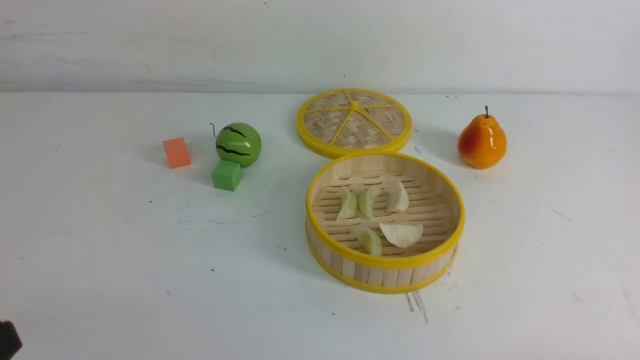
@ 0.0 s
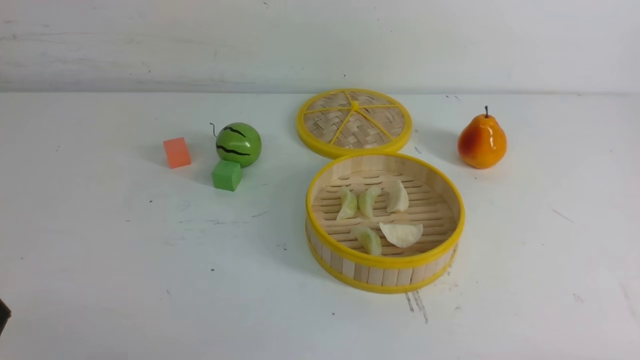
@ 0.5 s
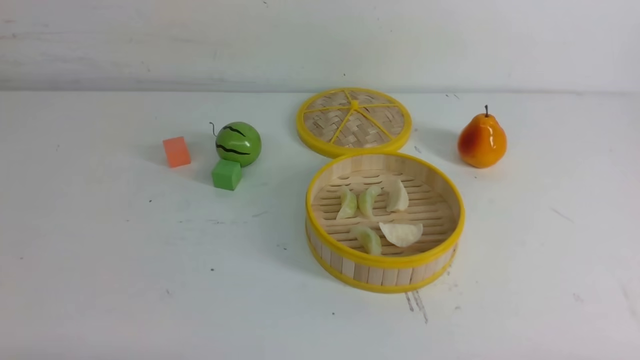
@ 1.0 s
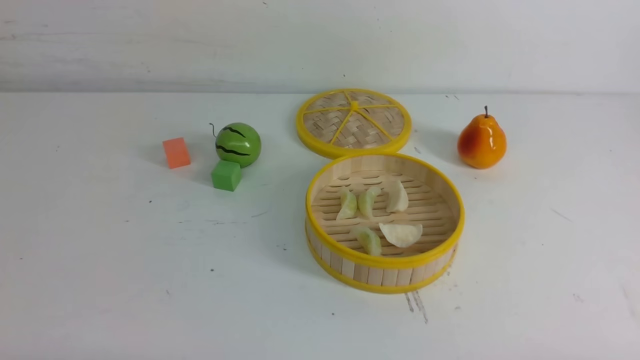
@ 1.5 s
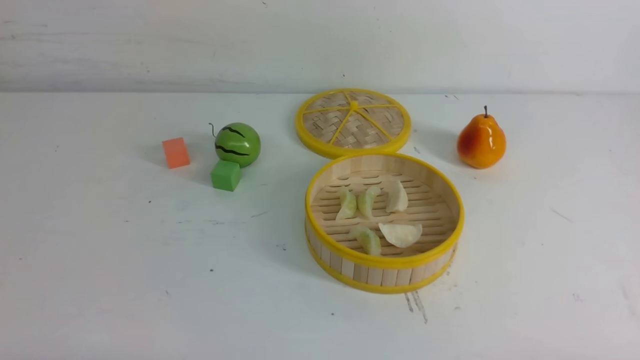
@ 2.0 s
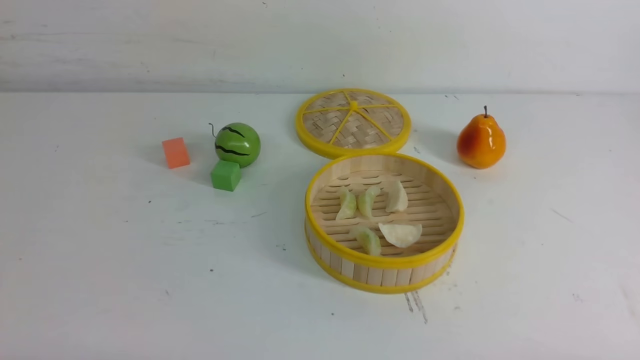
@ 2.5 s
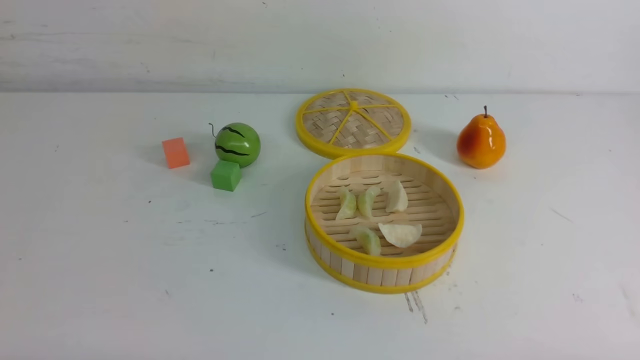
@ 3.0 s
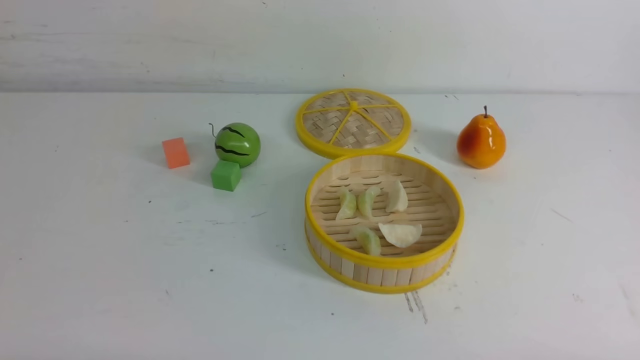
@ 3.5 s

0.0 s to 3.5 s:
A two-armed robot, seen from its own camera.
Task of the whole recording: put the dumplings into the steamer on the white table.
2.0 to 3.5 s: The two grippers keep their place.

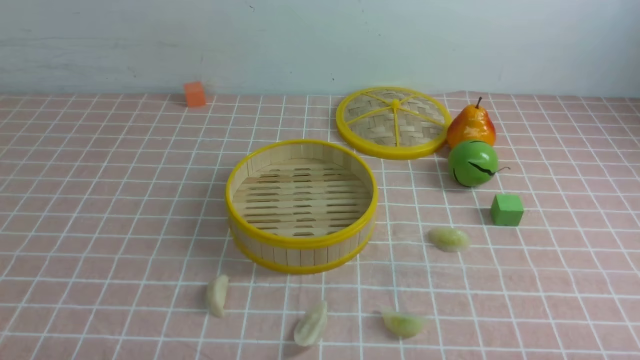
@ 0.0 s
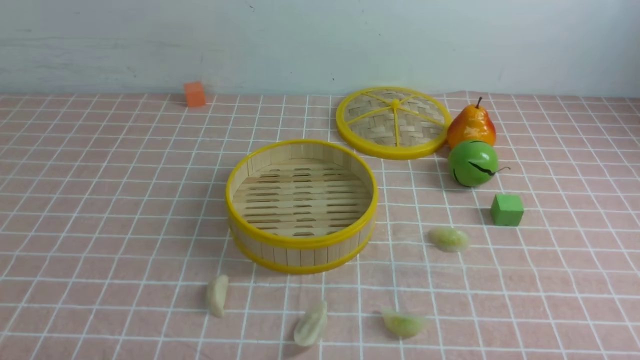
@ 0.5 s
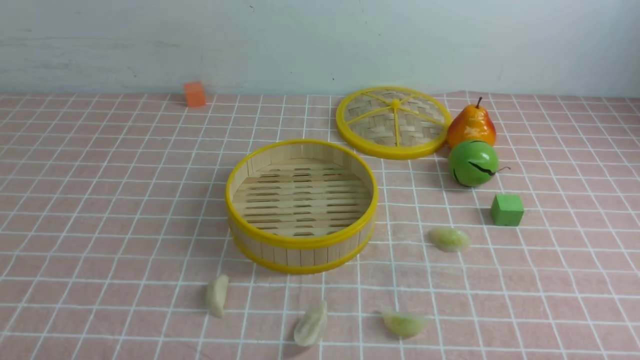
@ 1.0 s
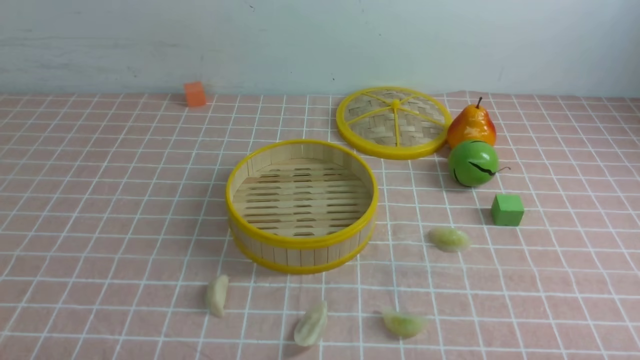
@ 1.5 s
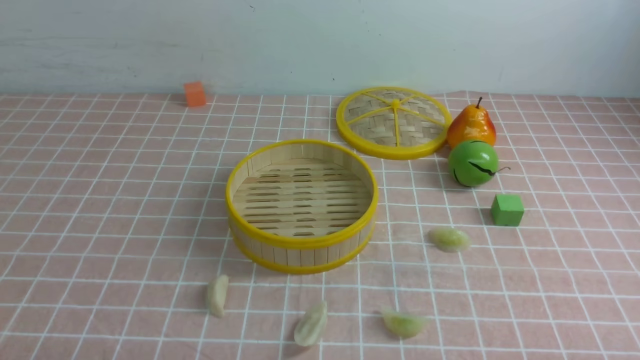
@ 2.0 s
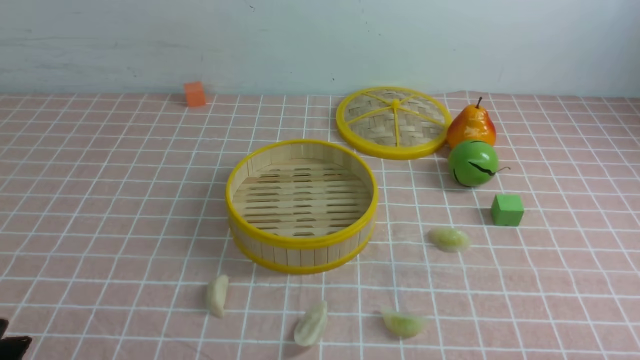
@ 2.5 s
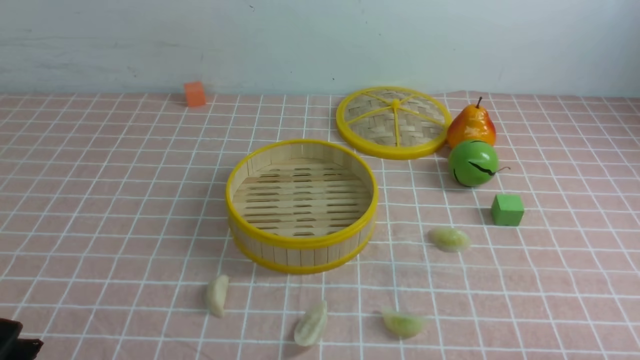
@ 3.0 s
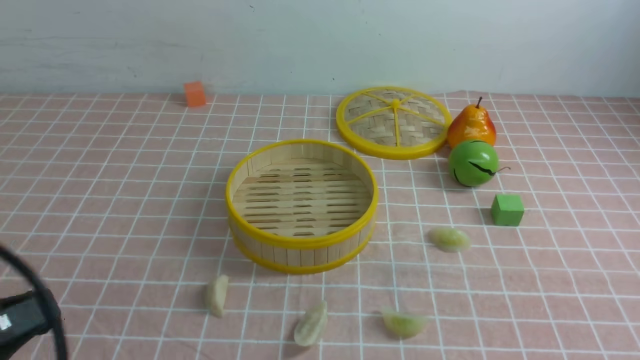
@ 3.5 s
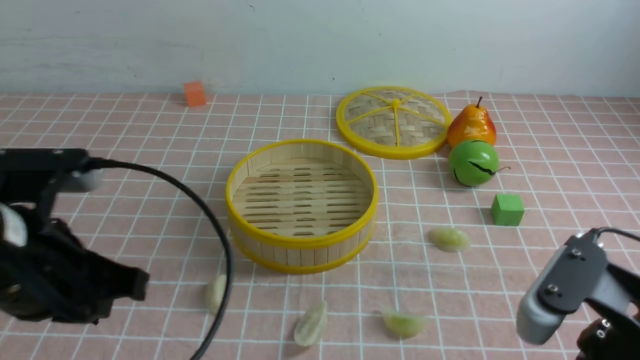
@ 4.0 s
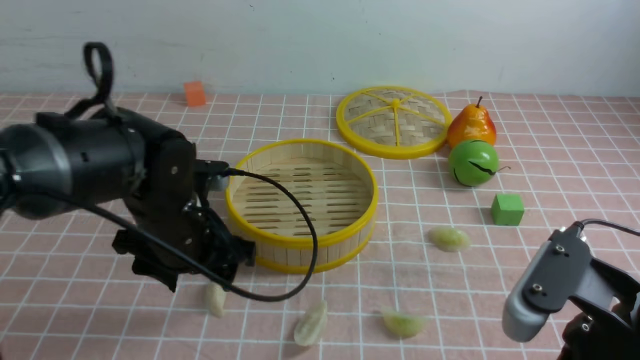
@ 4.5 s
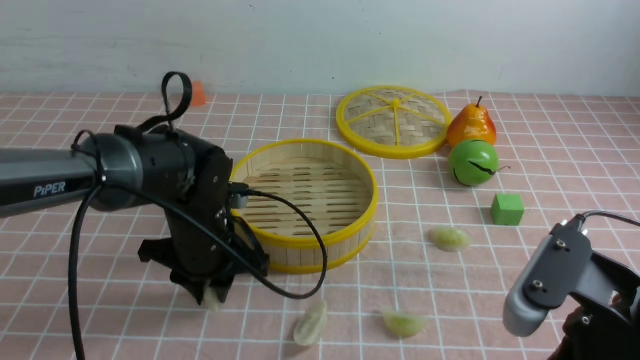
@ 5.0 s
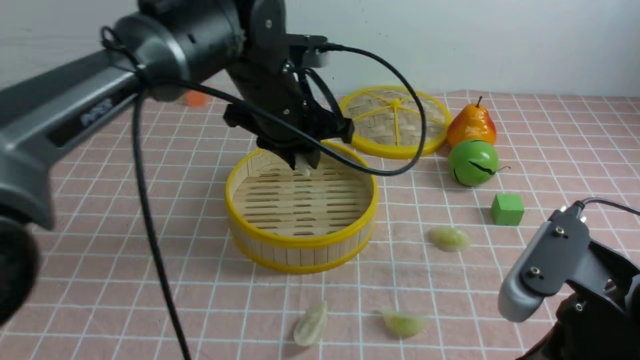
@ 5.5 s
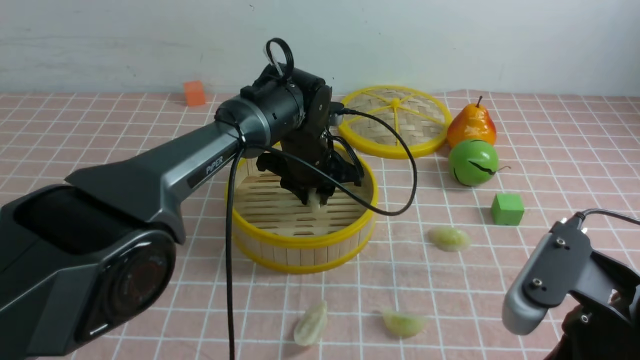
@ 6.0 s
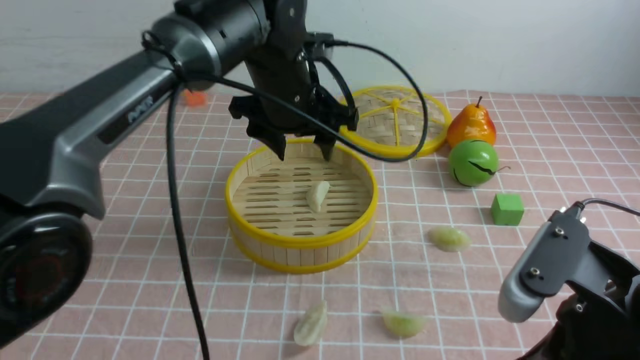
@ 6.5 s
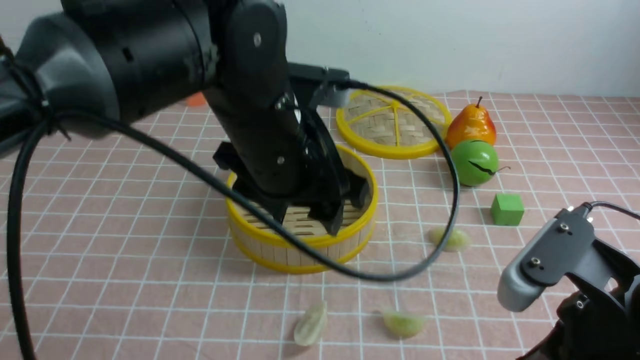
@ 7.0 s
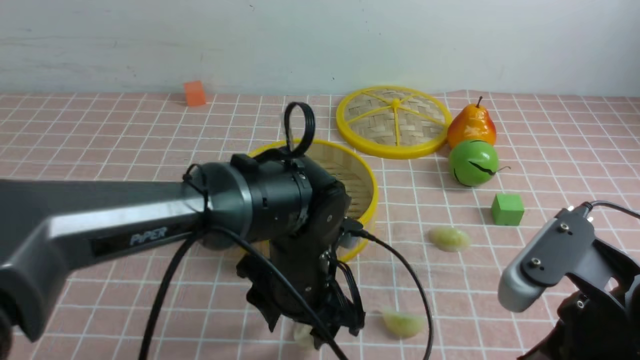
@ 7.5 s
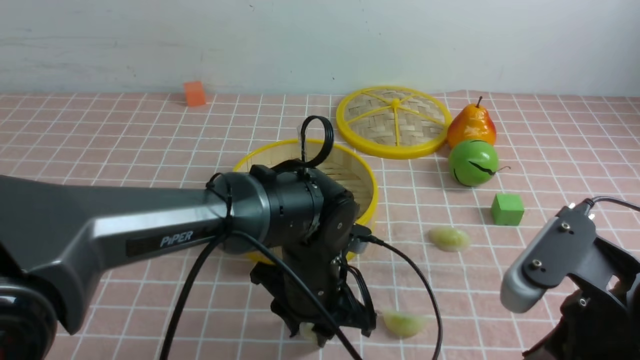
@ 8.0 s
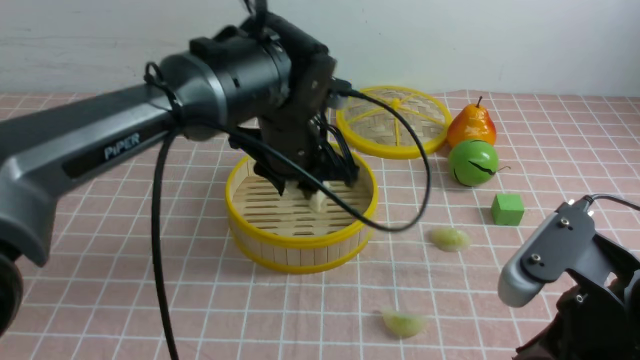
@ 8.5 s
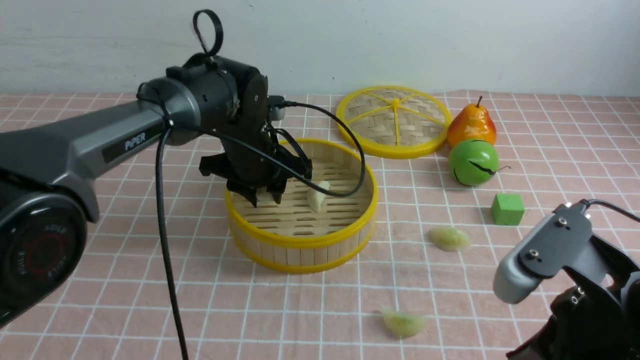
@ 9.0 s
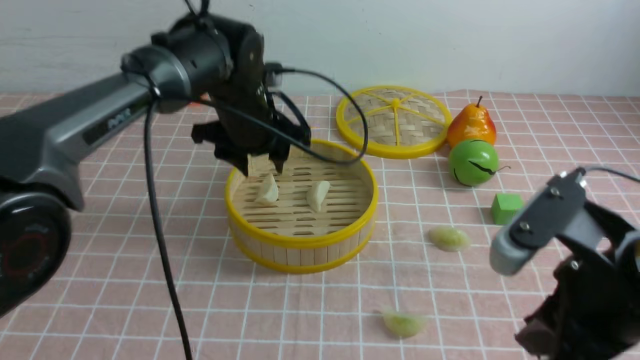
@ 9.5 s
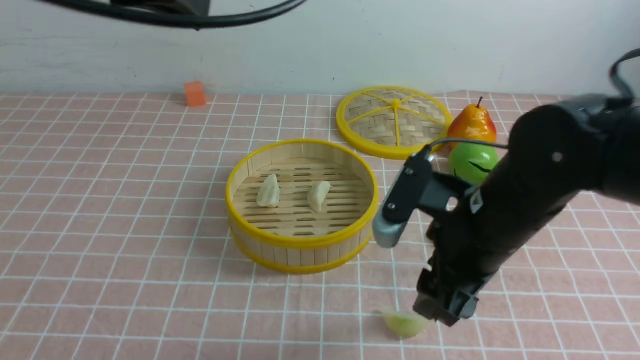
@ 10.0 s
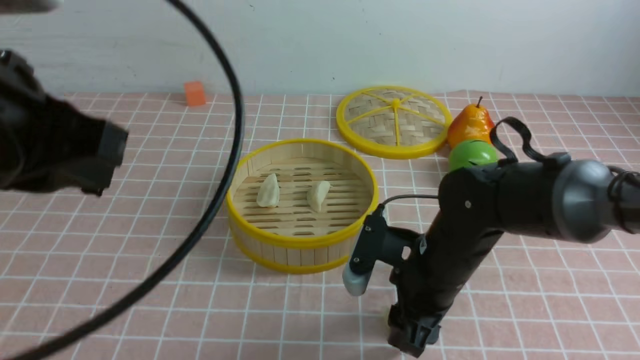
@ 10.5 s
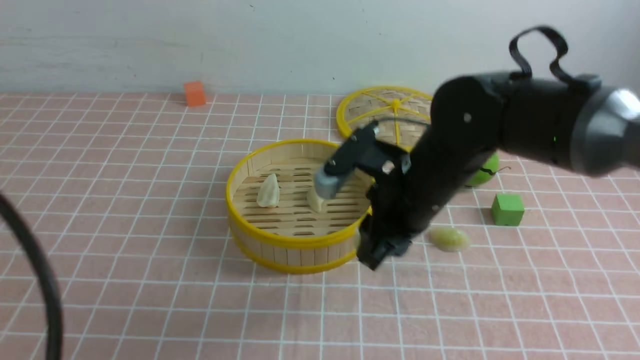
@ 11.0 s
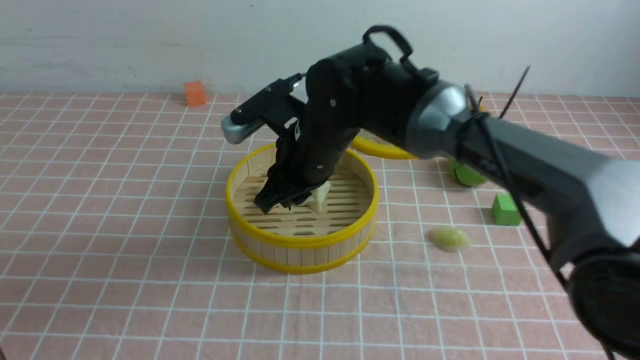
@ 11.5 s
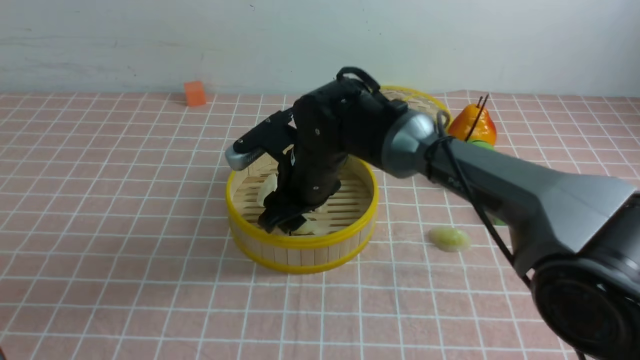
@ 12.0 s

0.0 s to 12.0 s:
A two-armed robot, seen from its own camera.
Task of the whole recording: put the dumplings into the steamer on the table with the pink tablecloth.
Step, 0.0 to 4.5 s: use the left arm to grab a dumpling.
Step, 5.5 to 6.0 s: use the left arm to put the dumpling into the steamer.
Step, 6.5 to 8.0 s: use the left arm to grab a dumpling.
Step, 8.5 to 9.0 s: use the left arm to put the dumpling into the steamer.
Step, 9.5 to 10.5 s: use the right arm to grab a dumpling.
Step, 11.0 to 12.0 s: use the right arm to put the dumpling into the steamer.
2.0 to 4.0 s: The right gripper shifts some 15 cm upward, to the left and forward, and closes its fingers, while the left gripper travels forward, upward and to the right by roughly 20 cm.
4.0 to 6.0 s: The left gripper goes approximately 30 cm forward and to the right, and opens up.
6.0 to 8.0 s: The left gripper moves backward, roughly 15 cm, and opens and closes again.
8.0 to 10.0 s: The right gripper moves forward and to the left, approximately 15 cm, and opens its fingers. The left gripper goes up and down, some 30 cm each way, reversing 2 times, and closes.
10.0 to 12.0 s: The right gripper goes approximately 20 cm to the left and forward, and closes, then reopens. The left gripper travels backward, to the left and downward by approximately 25 cm.

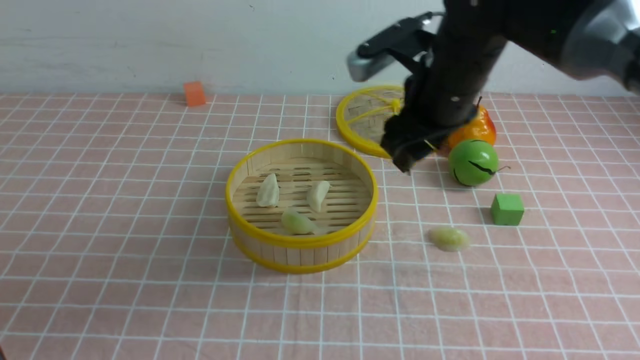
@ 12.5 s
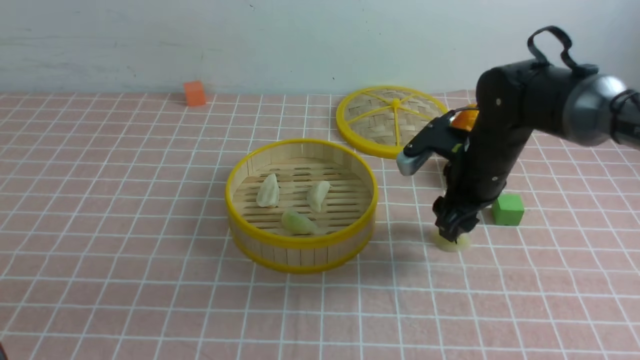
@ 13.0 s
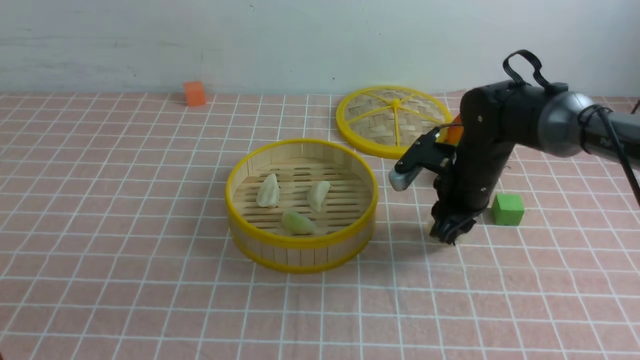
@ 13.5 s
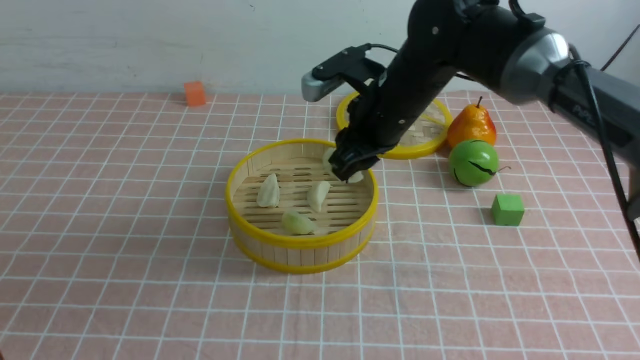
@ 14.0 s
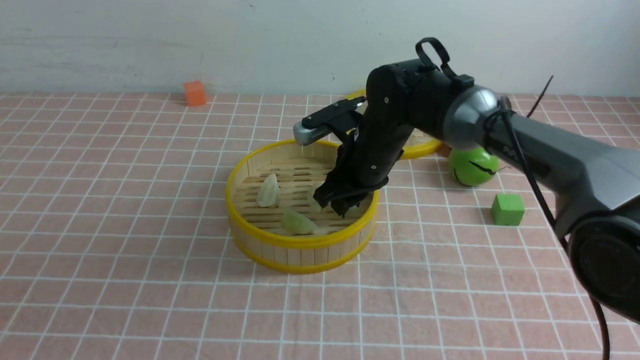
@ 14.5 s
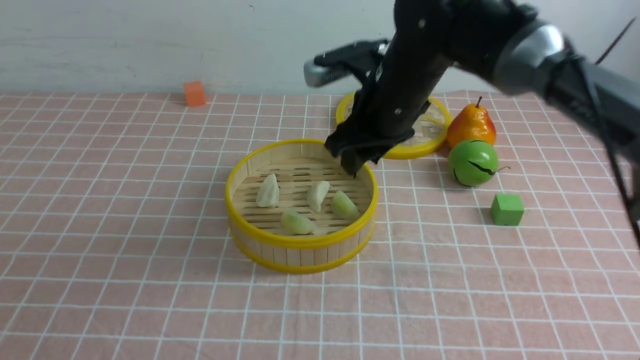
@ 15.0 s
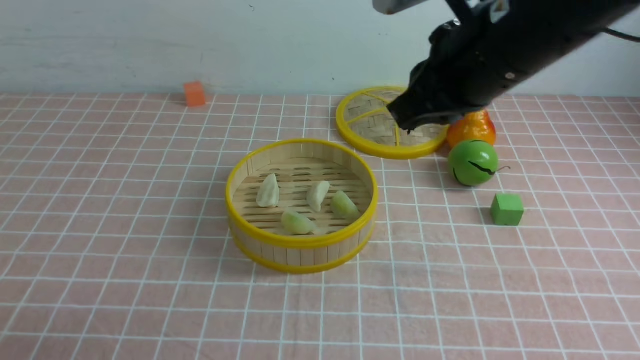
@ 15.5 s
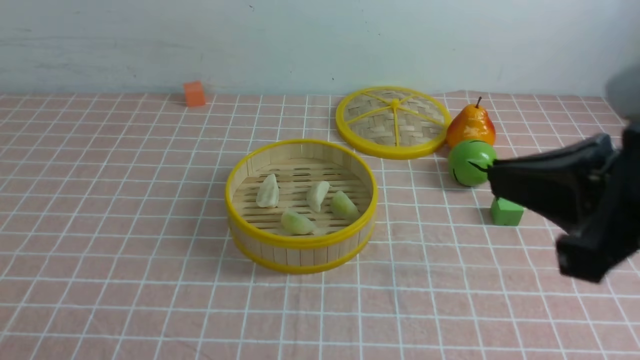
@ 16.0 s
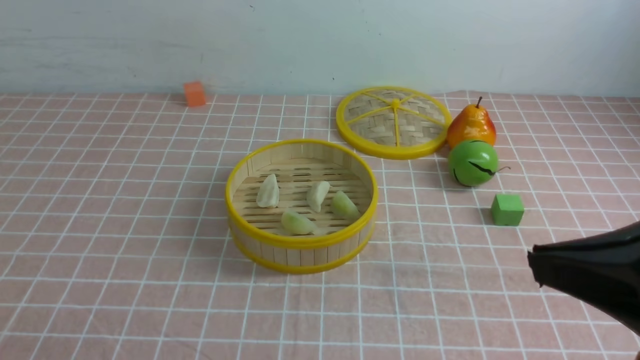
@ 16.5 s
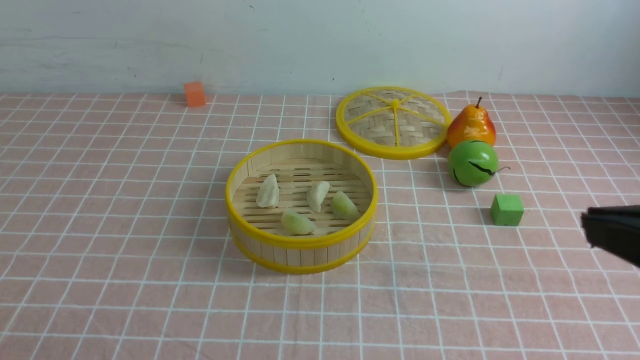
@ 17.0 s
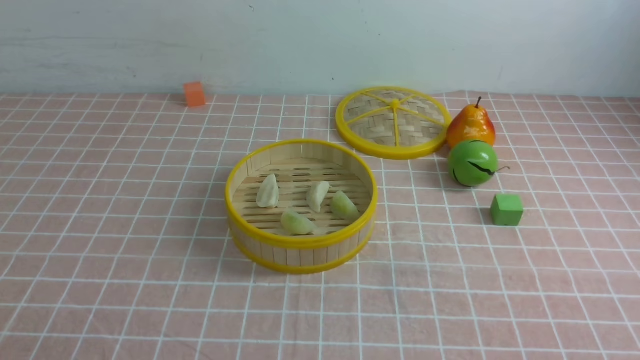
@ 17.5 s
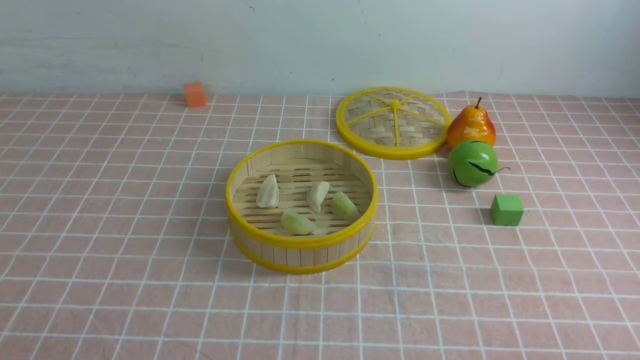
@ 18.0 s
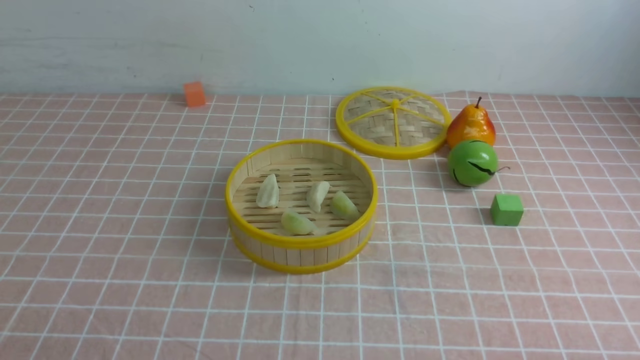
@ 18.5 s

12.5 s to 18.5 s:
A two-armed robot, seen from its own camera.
Task of the whole recording: put the dumplings into the steamer on the table with the pink tablecloth.
Step, 12.5 to 13.5 s: use the right arm to grab a dumpling.
Step, 14.0 to 14.5 s: use the right arm to put the dumpling into the steamer.
12.5 to 14.5 s: The right gripper shifts approximately 10 cm downward and to the left, and closes its fingers.
14.5 to 16.5 s: The right gripper shifts roughly 40 cm backward, to the right and upward, and closes up; the left gripper moves downward, approximately 10 cm.
16.5 to 18.5 s: The right gripper shifts approximately 20 cm downward and to the right.
